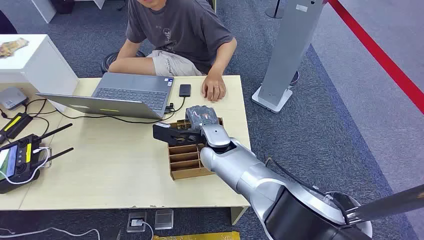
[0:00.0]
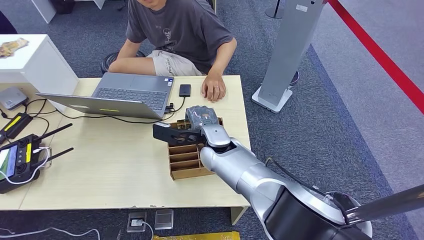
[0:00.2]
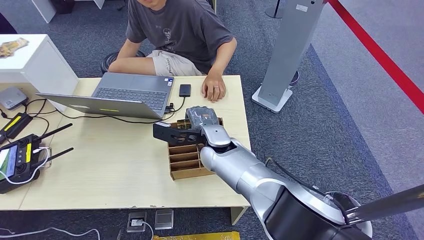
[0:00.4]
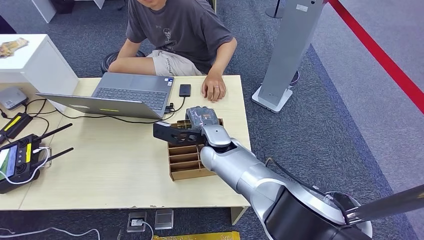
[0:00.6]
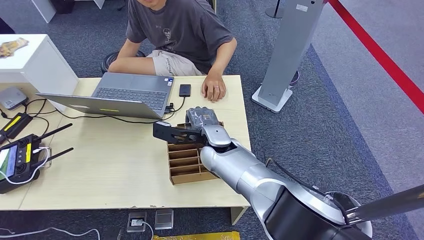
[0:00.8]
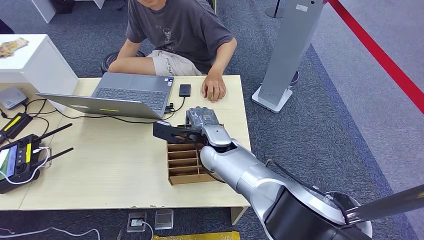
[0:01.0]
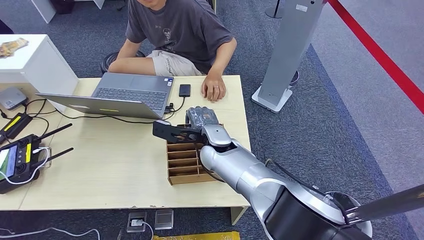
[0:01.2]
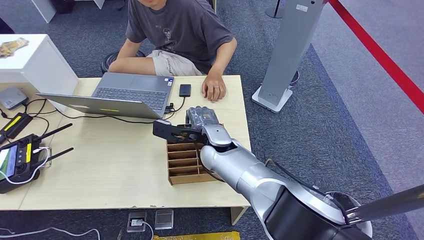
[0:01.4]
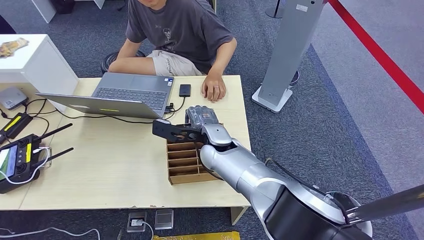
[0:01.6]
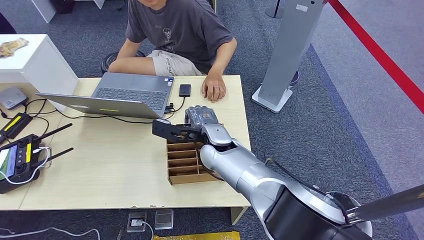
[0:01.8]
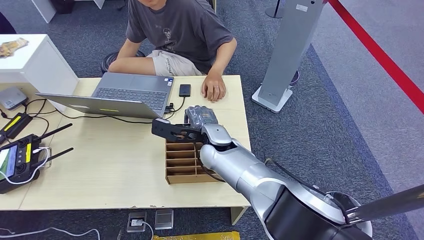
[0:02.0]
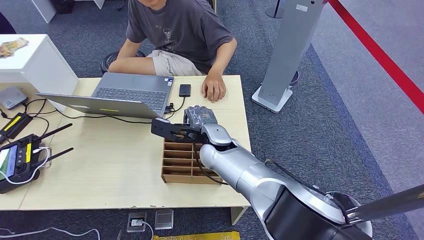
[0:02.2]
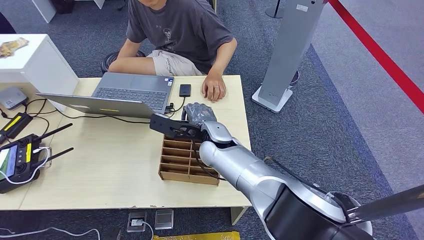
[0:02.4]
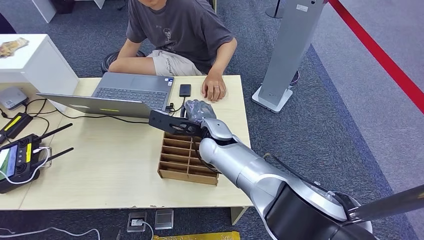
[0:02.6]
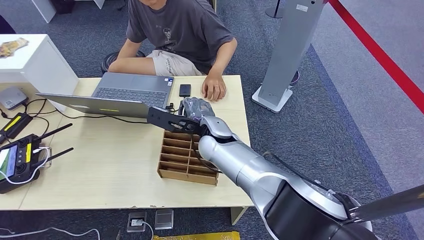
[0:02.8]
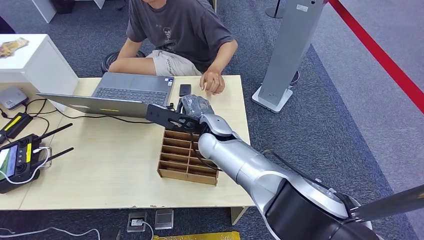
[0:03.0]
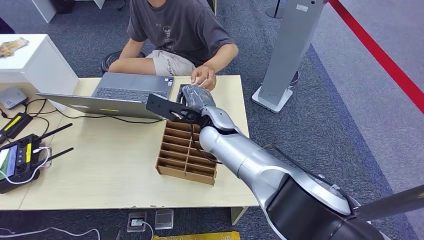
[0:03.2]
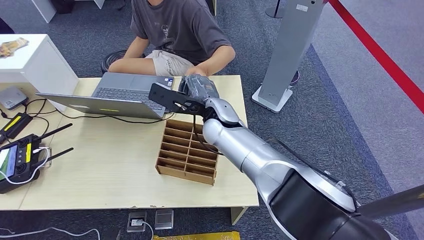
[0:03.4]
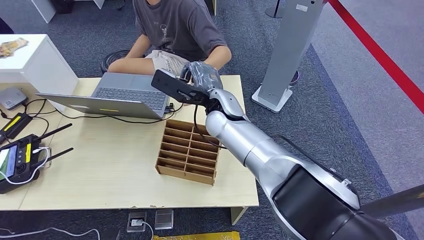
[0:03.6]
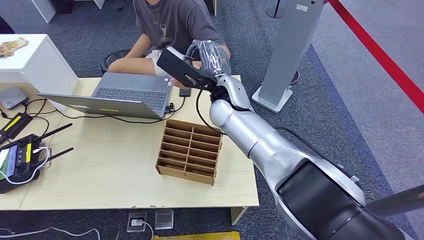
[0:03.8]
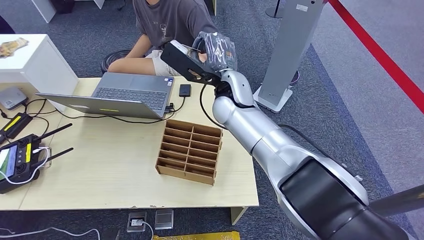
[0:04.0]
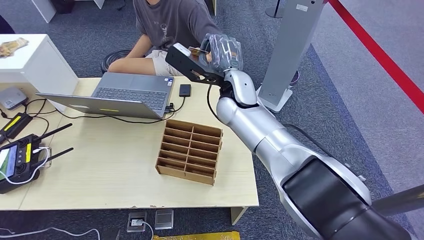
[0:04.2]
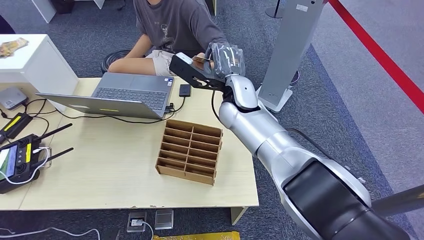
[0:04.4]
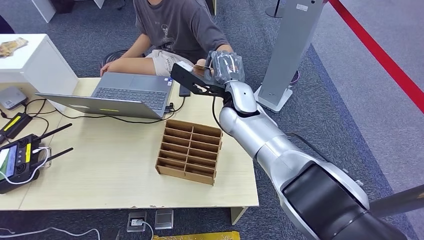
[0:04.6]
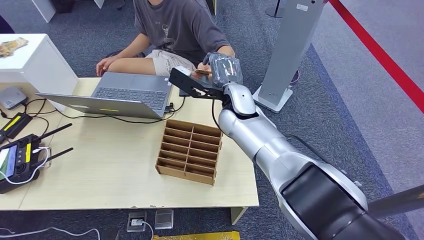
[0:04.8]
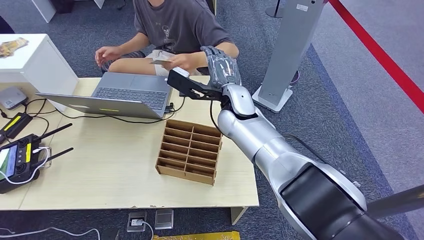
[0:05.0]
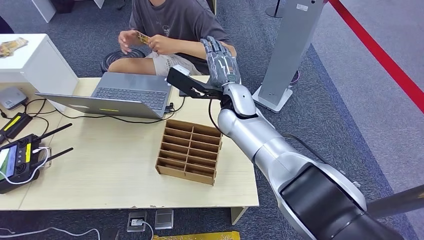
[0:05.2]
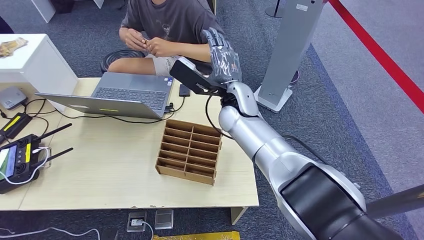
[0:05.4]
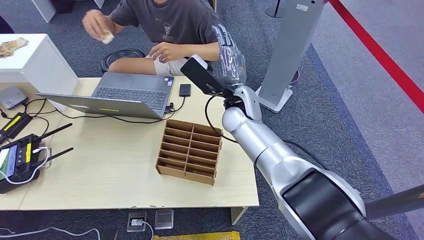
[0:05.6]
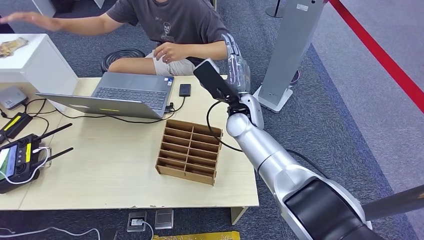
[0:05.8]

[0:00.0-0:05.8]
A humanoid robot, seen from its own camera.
Task of the whole recording: Pick up the card and hand it over to the target person.
Step, 0:00.0 to 0:03.4: Pick up the key card from the card box.
Step, 0:03.6 to 0:05.8: Hand the key card to the target.
0:01.4 to 0:02.8: The hands move only a little.
0:02.8 to 0:04.4: The right hand moves to the right, about 5 cm, and travels upward and back again, approximately 10 cm each way.
0:04.4 to 0:05.8: The right hand ends up approximately 5 cm from where it was.

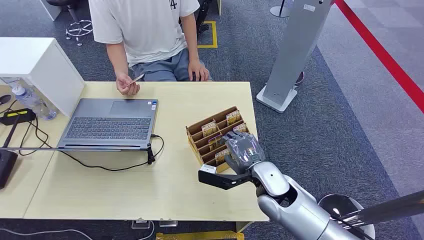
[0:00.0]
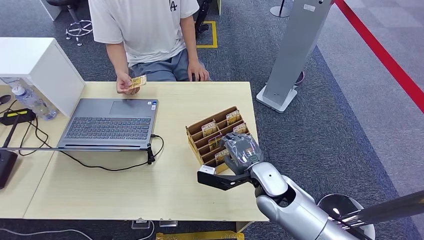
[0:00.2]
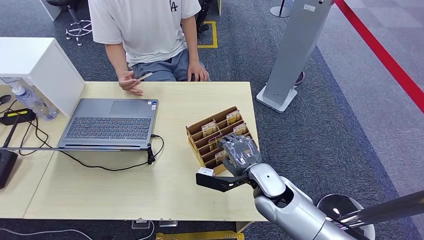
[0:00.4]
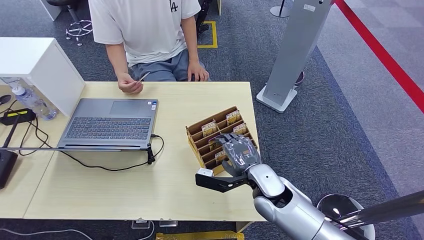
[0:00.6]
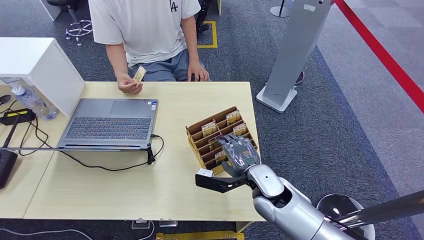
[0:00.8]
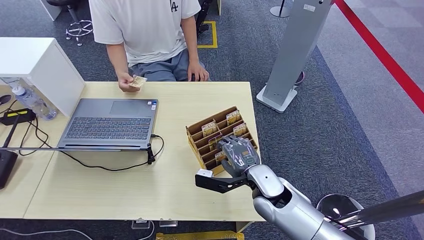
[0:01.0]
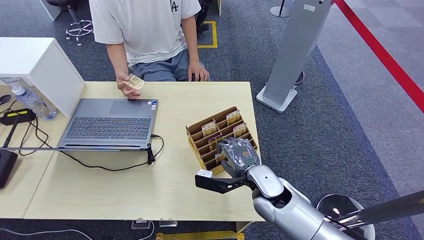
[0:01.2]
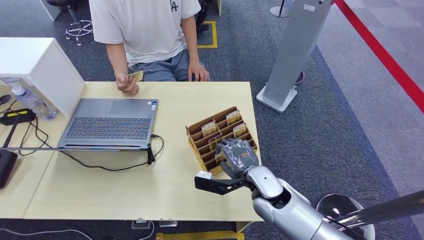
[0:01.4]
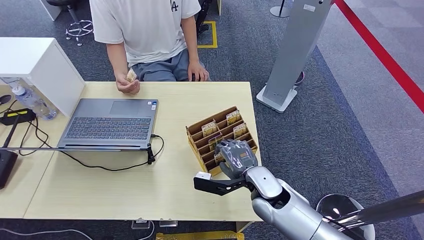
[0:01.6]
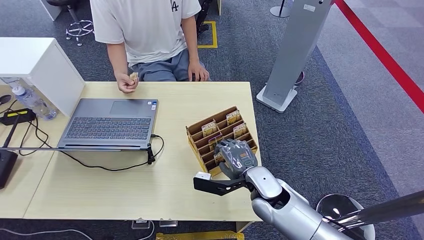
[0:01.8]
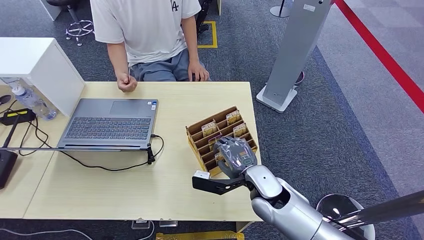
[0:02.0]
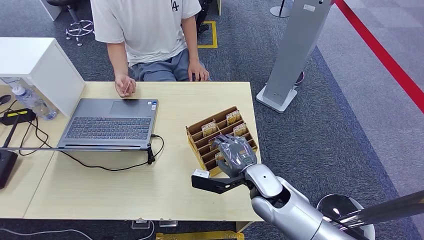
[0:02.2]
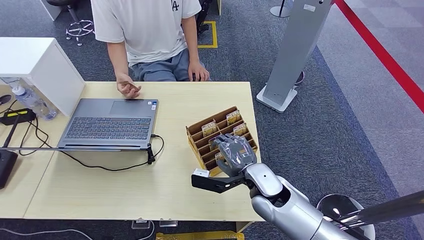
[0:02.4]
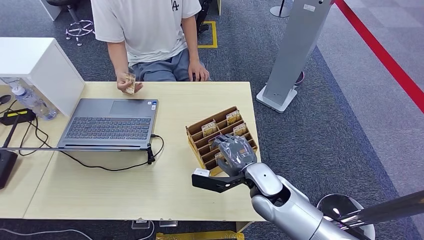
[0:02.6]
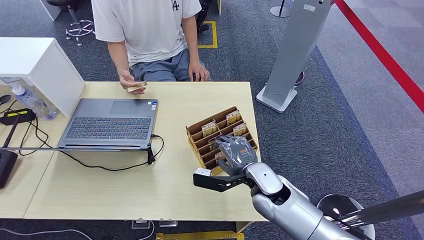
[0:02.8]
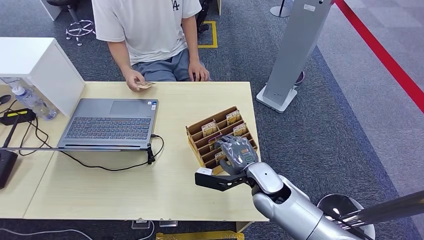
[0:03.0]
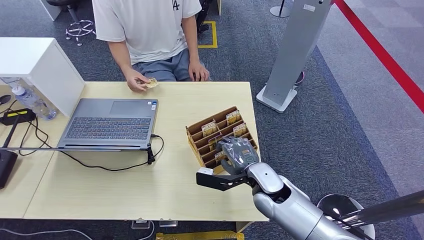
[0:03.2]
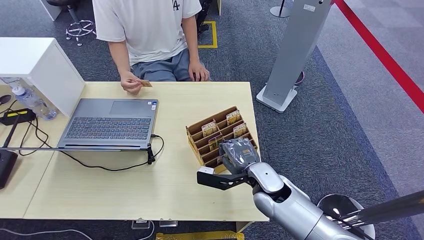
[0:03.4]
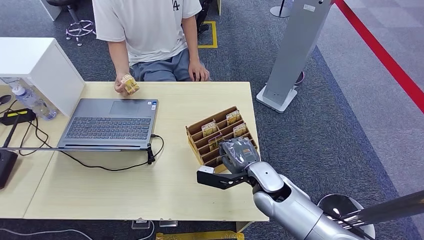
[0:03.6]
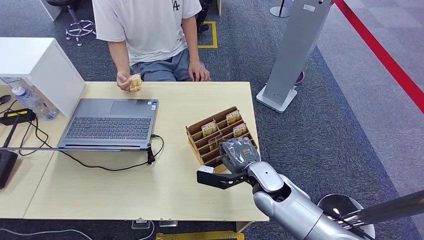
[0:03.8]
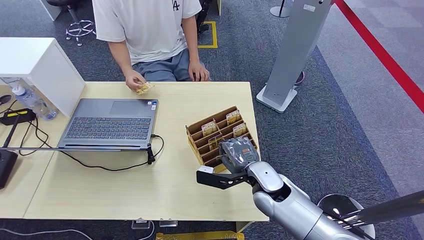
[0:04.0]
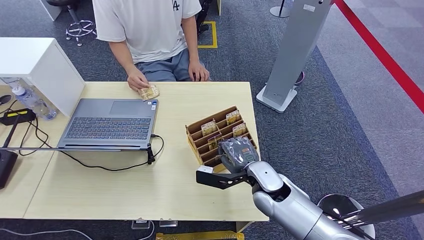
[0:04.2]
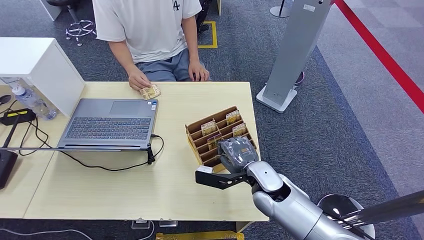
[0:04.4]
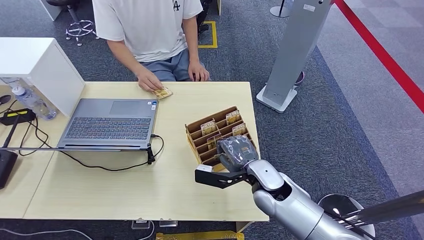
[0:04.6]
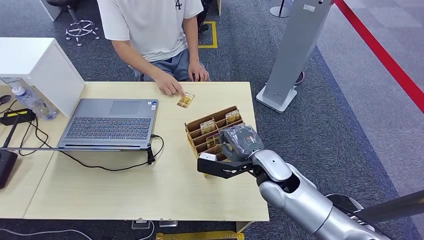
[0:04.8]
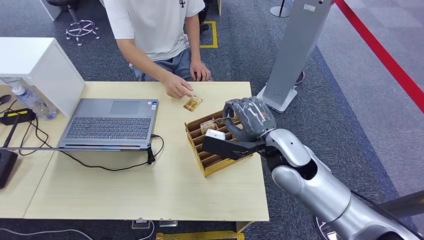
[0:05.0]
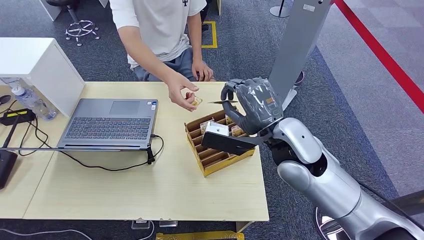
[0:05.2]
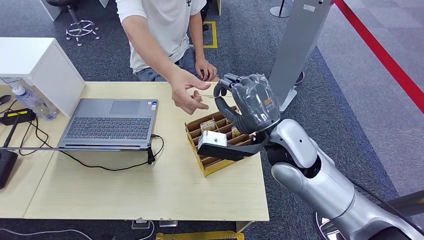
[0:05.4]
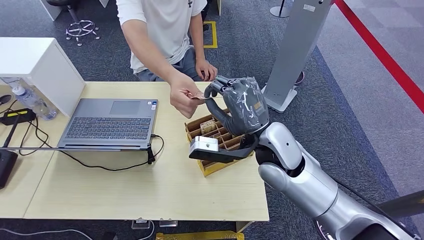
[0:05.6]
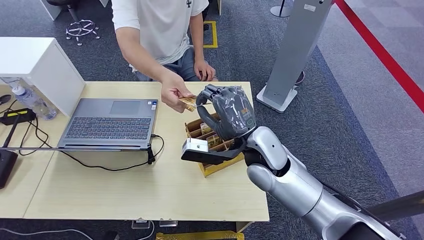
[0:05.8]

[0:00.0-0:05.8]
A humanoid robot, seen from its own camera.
Task of the whole recording: Pick up the card and hand it over to the target person.
Step, 0:00.0 to 0:05.0: Pick up the key card from the card box.
Step, 0:05.2 to 0:05.8: Hand the key card to the target.
0:01.4 to 0:04.4: There are only small adjustments of the hands.
0:04.4 to 0:05.8: The right hand heads upward and to the left, covering about 10 cm.
